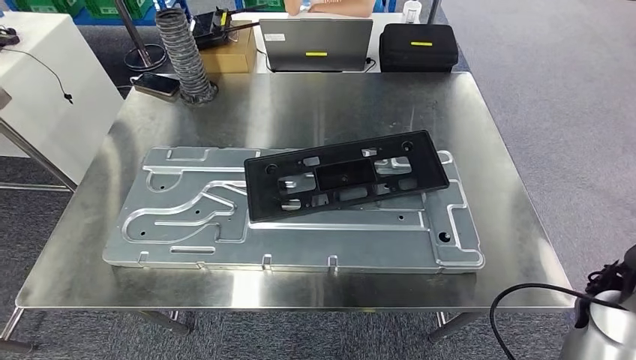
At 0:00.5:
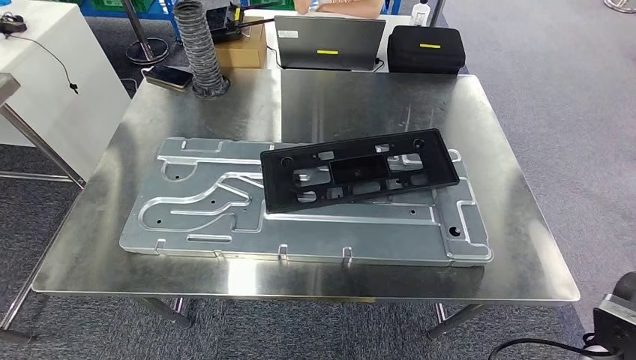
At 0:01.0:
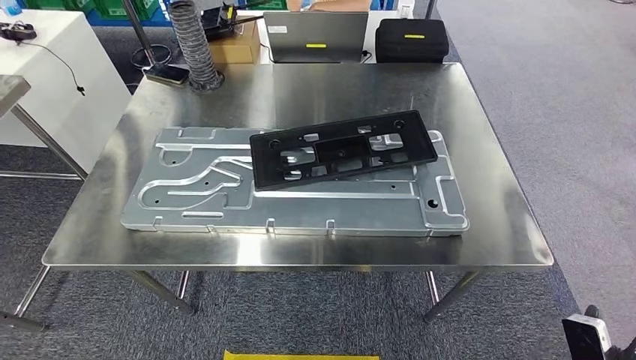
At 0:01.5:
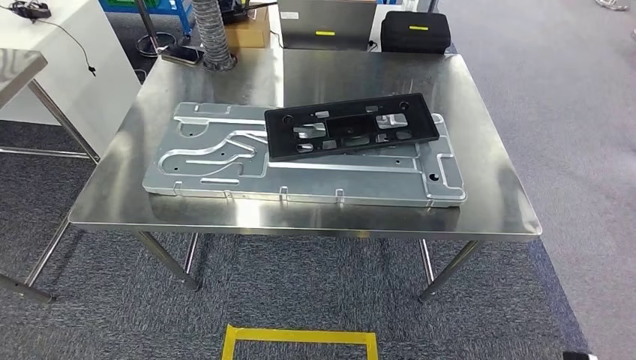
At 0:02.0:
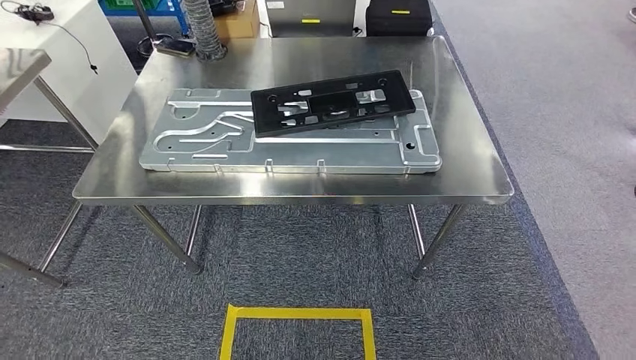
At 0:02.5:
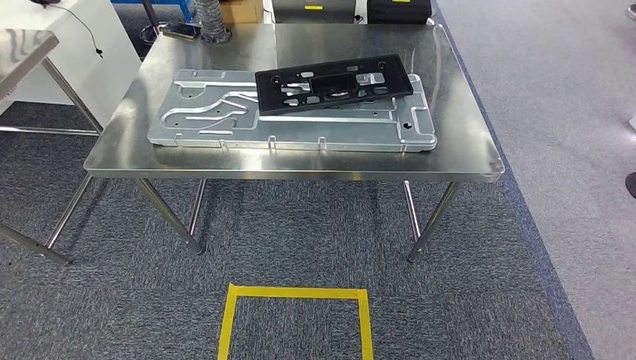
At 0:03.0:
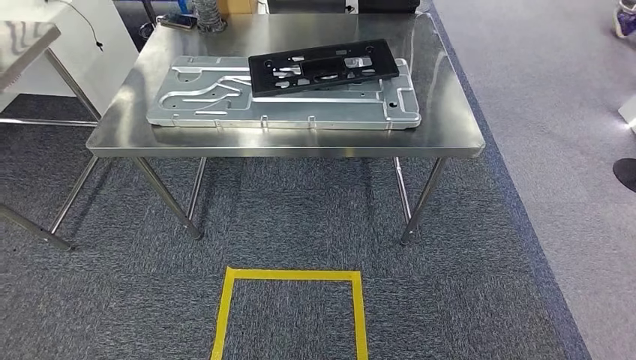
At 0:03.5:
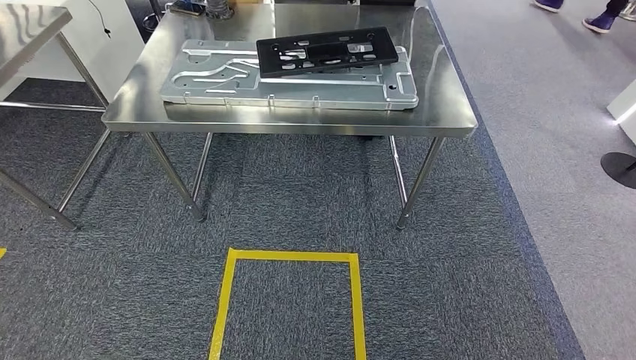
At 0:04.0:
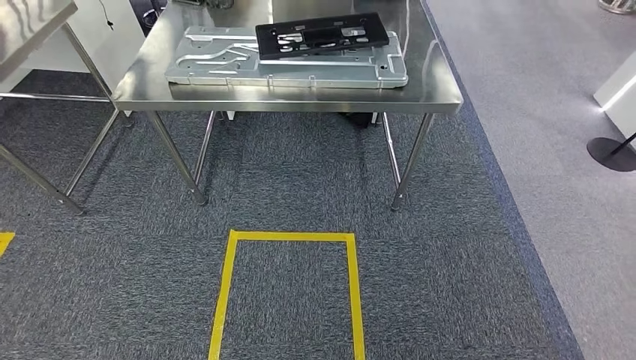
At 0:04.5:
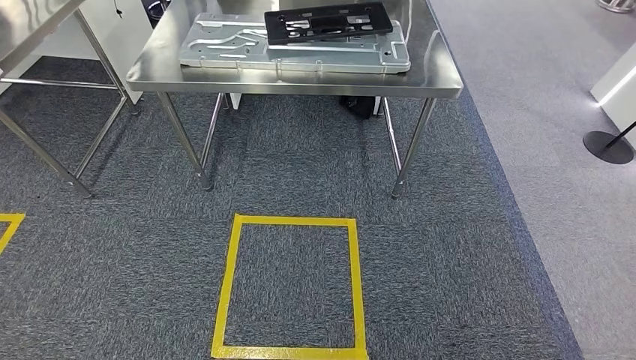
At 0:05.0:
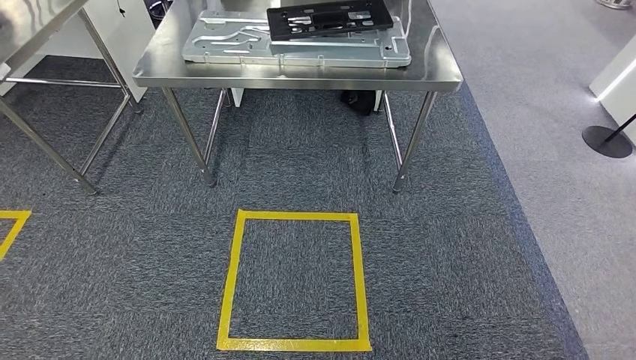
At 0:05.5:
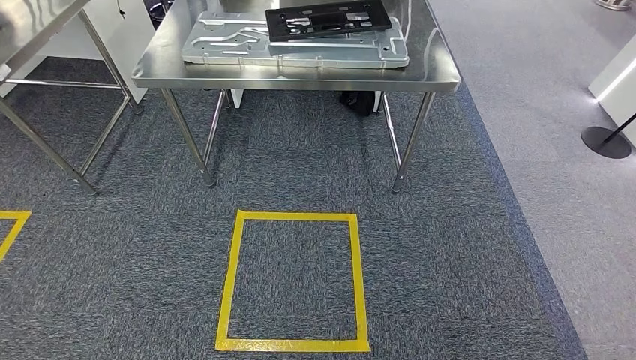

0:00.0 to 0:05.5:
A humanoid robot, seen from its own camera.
Step, 0:01.0 to 0:05.5: Return to the initial position at the shelf.
